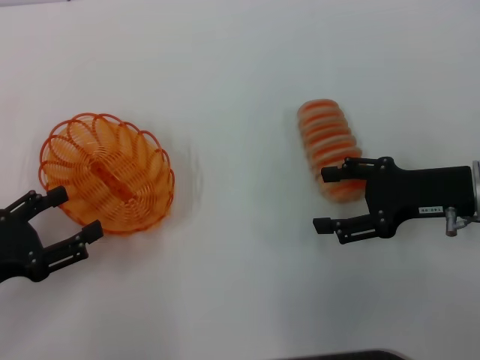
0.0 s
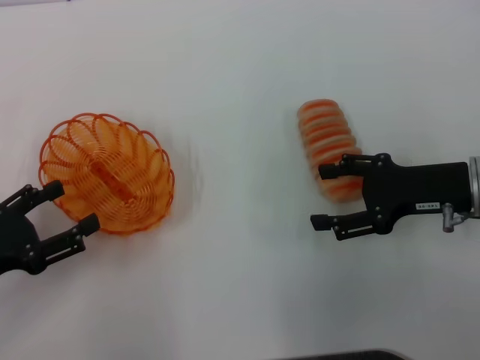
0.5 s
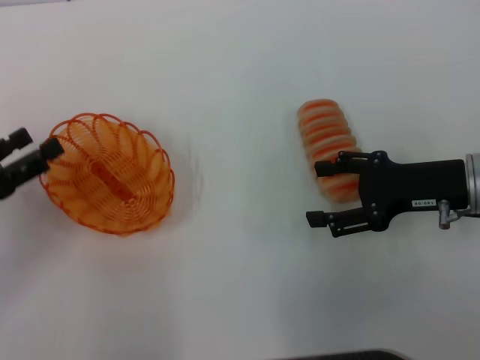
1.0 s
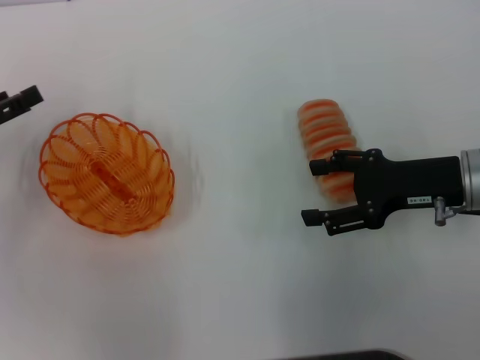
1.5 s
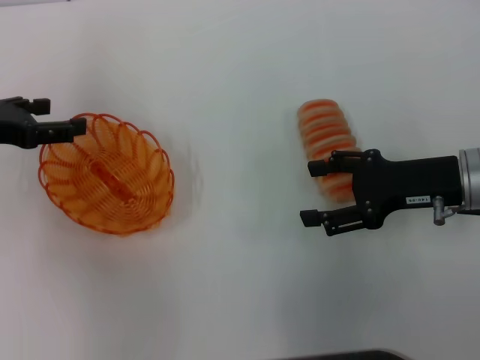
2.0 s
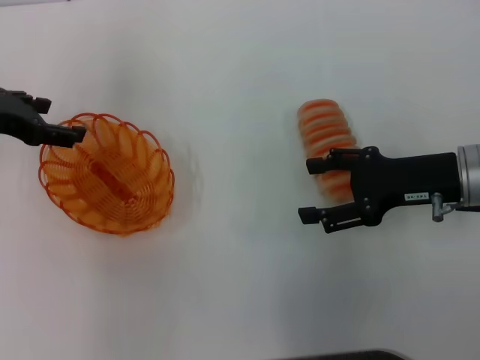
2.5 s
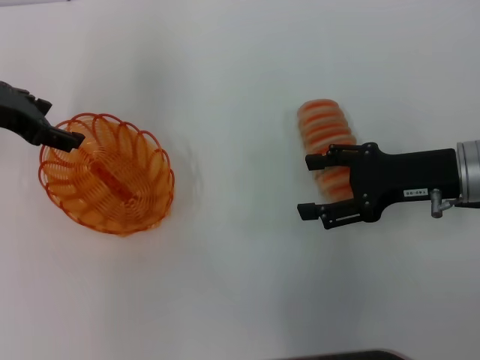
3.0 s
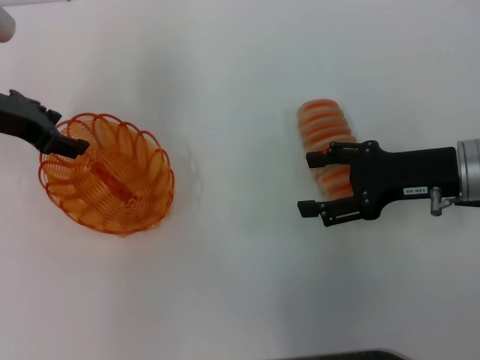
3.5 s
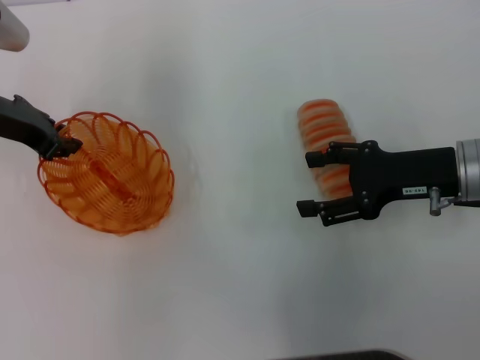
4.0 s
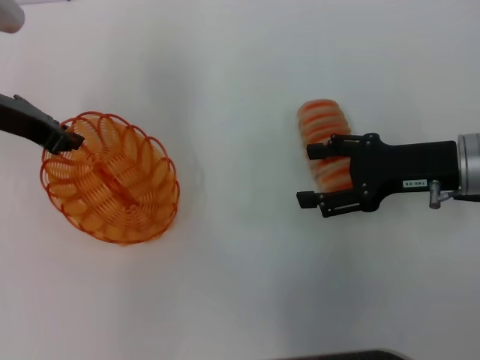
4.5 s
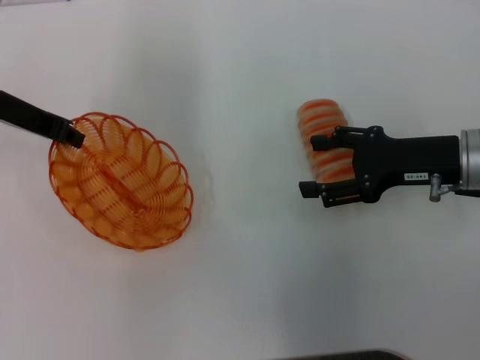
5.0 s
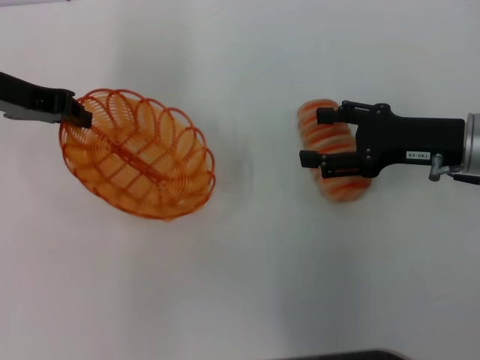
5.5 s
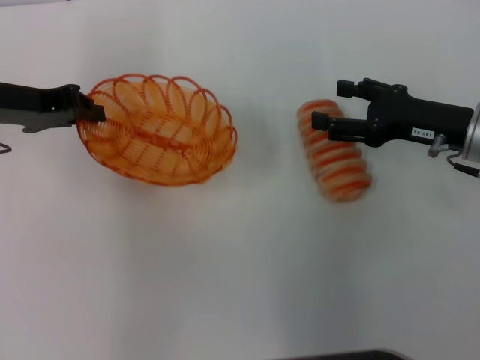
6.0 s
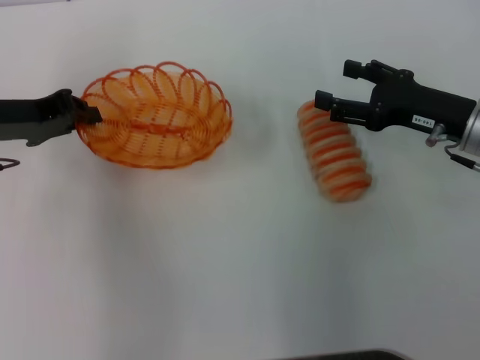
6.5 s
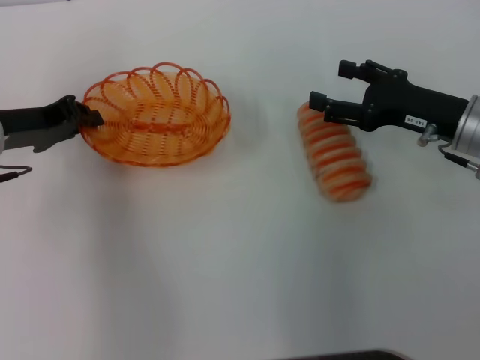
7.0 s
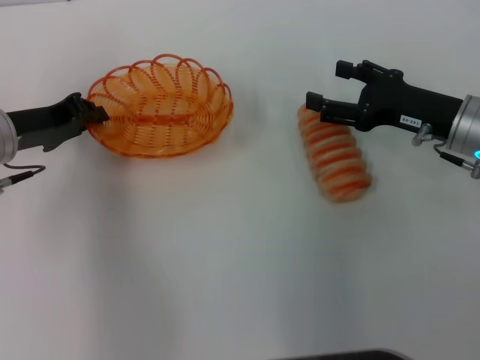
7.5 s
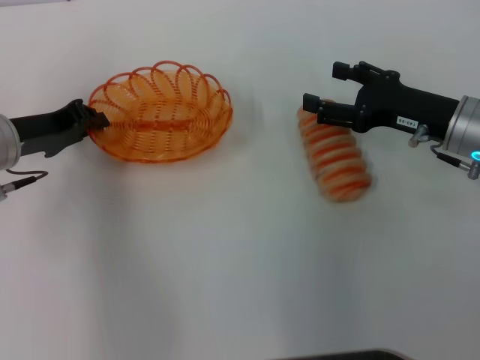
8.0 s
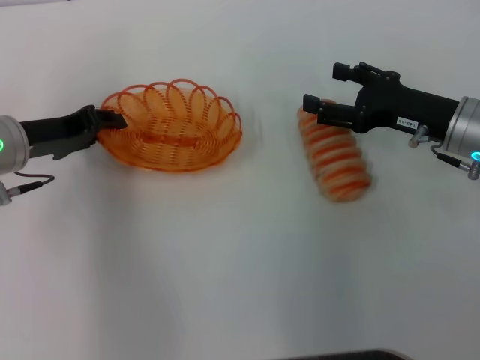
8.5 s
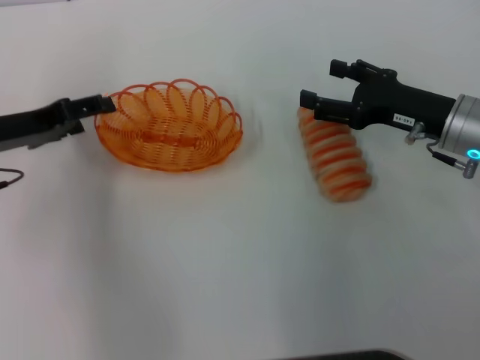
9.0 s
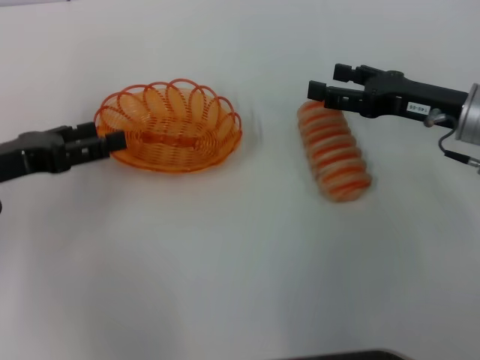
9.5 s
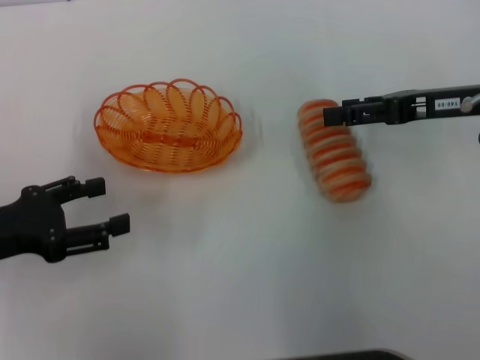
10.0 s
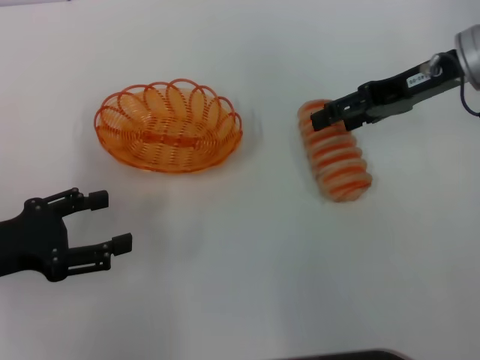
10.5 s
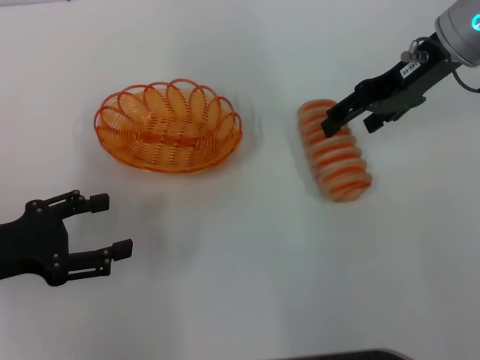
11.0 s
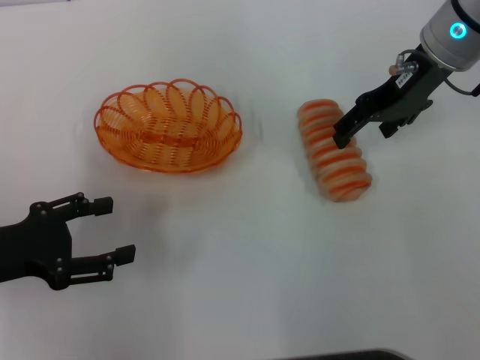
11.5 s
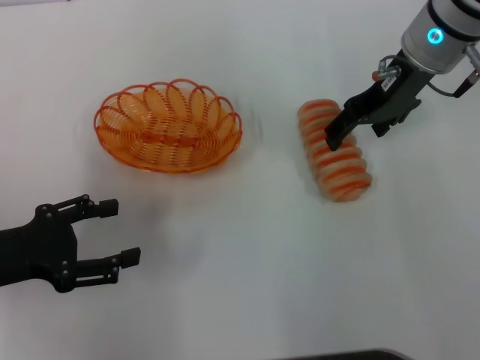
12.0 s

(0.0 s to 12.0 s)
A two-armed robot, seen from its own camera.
Step, 0.0 s - 5.0 s: Pick up the basket with the left gripper.
Step, 5.5 s - 9.0 s: Place the basket in the center of view with the left gripper.
0.0 s - 2.0 s: The left gripper goes about 15 cm forward and upward.
2.0 s - 4.0 s: The left gripper goes approximately 5 cm to the right, and closes up.
4.0 s - 6.0 s: The left gripper closes its fingers.
6.0 s - 8.0 s: The left gripper heads downward, covering roughly 5 cm.
8.0 s - 10.0 s: The left gripper goes approximately 10 cm backward, and opens up, while the right gripper shifts about 5 cm upward.
10.0 s - 12.0 s: The right gripper travels to the left and forward by about 10 cm.

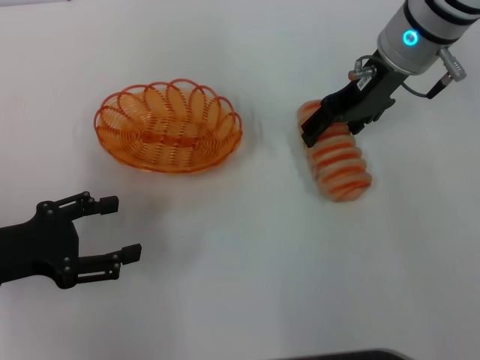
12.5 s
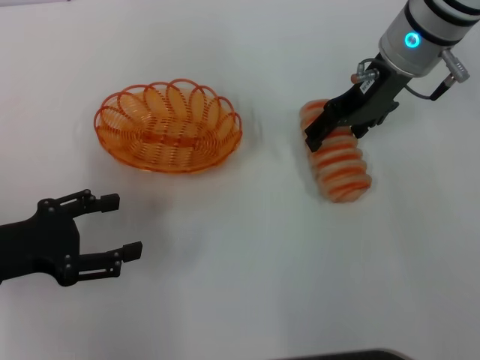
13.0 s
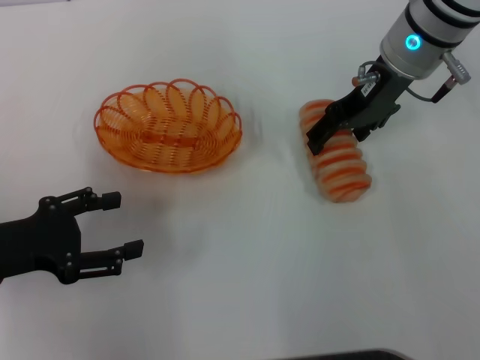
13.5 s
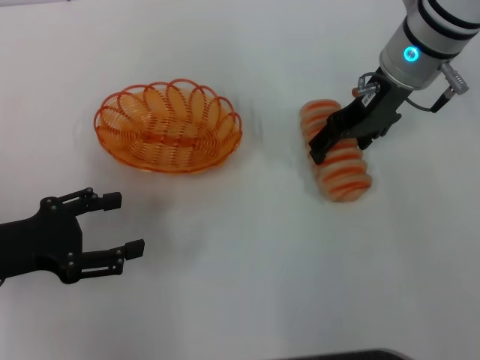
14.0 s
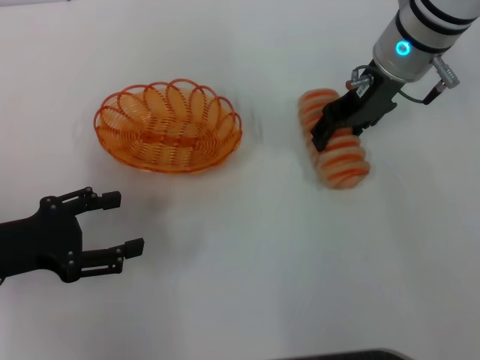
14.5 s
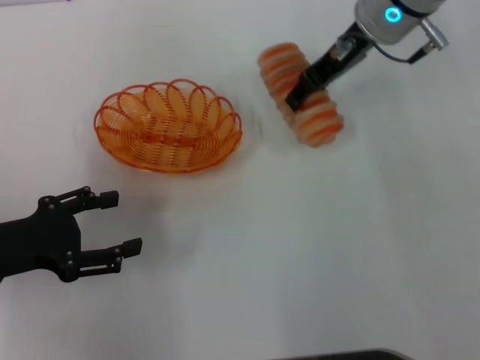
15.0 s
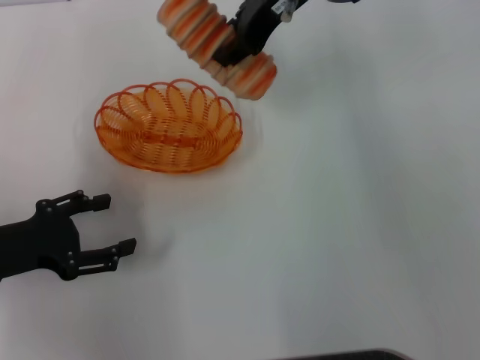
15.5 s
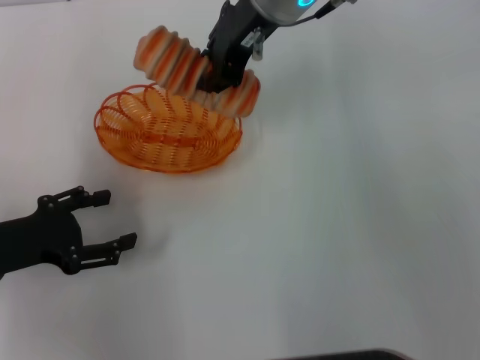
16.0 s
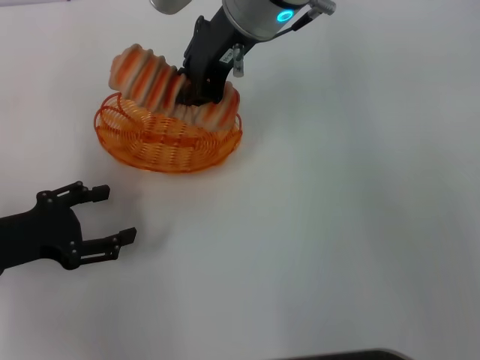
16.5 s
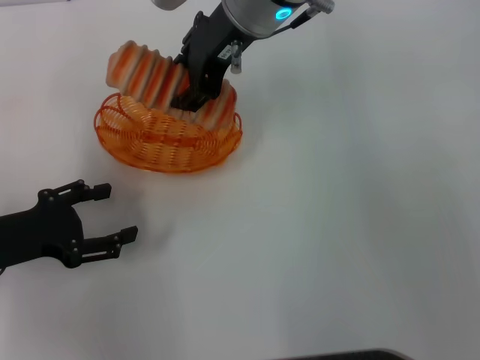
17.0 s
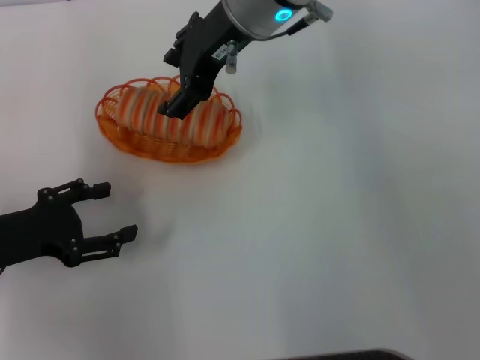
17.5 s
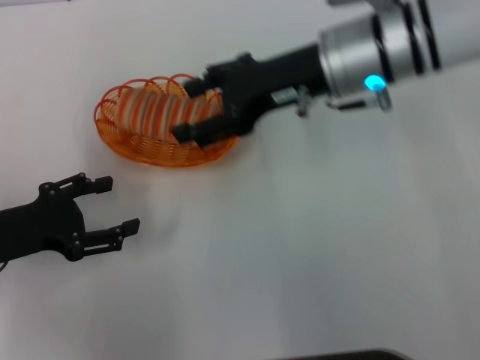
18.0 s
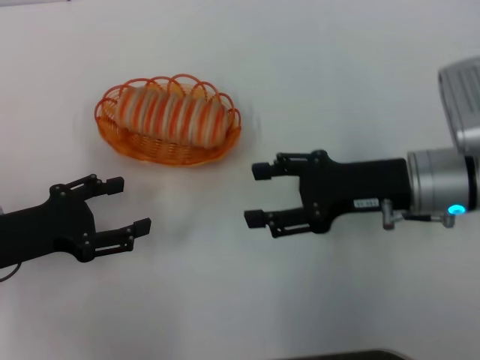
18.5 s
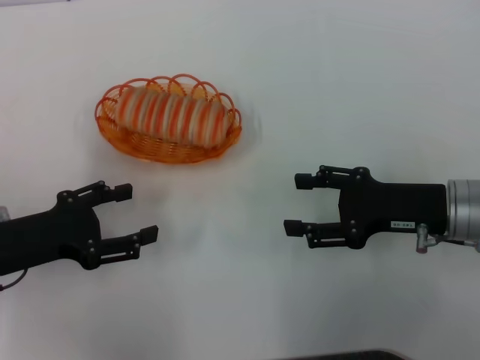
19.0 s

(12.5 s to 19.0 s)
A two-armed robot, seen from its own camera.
Step, 12.5 s - 14.5 s: Pick up the long bread with the right gripper.
Step, 15.0 s - 17.5 s: Place the long bread into the basket with the right gripper.
12.5 s - 14.5 s: Both grippers stay put.
14.5 s - 17.0 s: The right gripper is displaced to the left and upward by roughly 15 cm, and closes.
17.0 s - 19.0 s: The right gripper moves to the right, downward and backward, roughly 30 cm, and opens up.

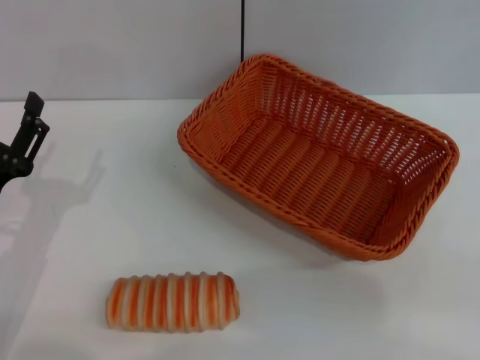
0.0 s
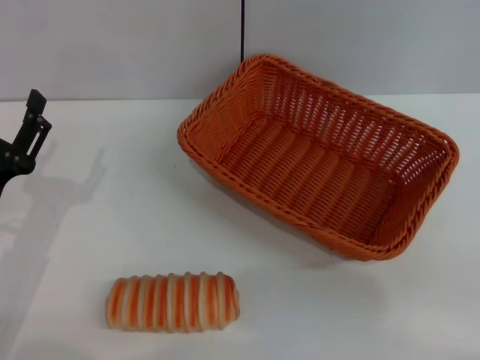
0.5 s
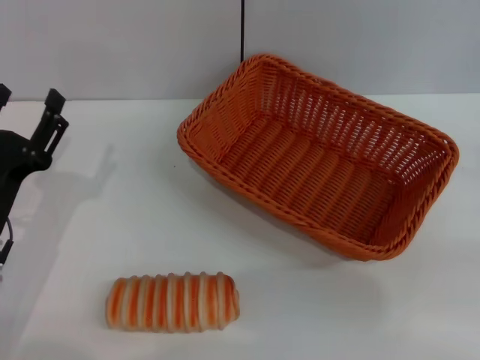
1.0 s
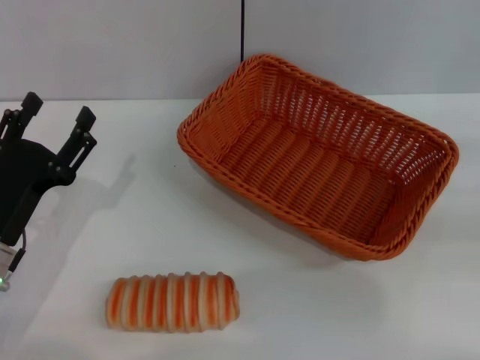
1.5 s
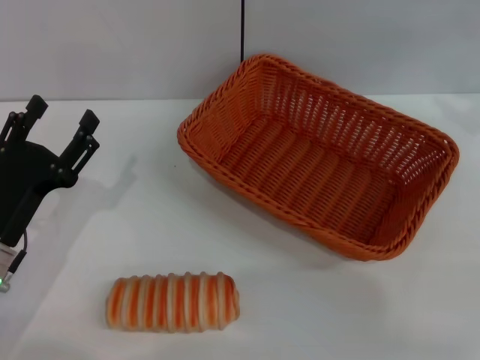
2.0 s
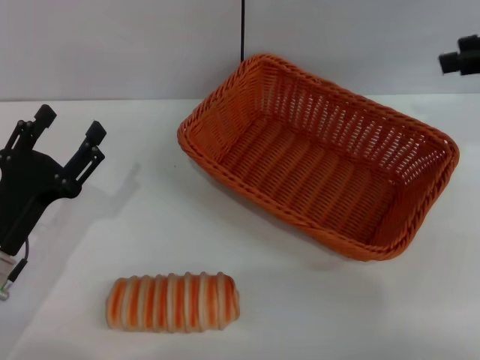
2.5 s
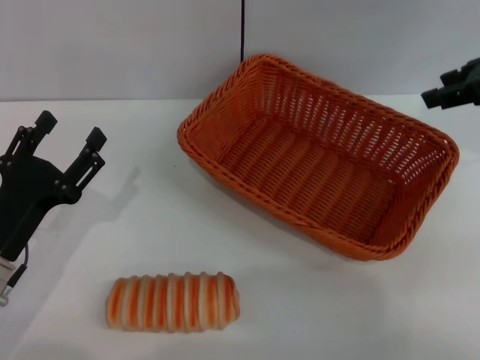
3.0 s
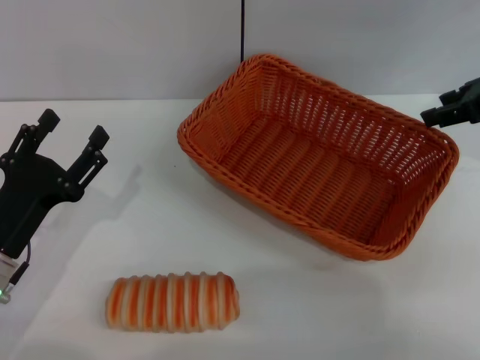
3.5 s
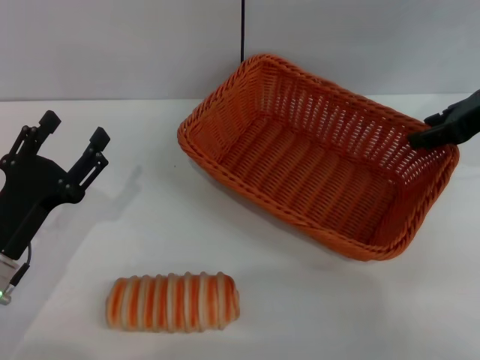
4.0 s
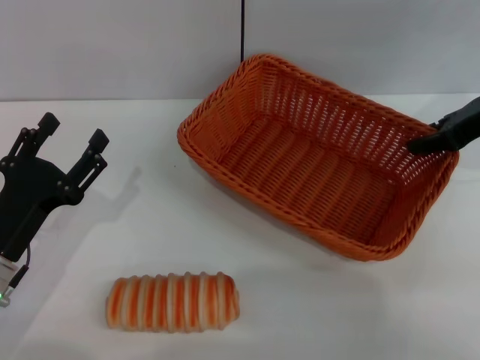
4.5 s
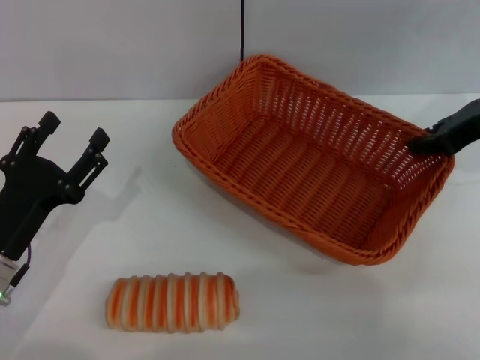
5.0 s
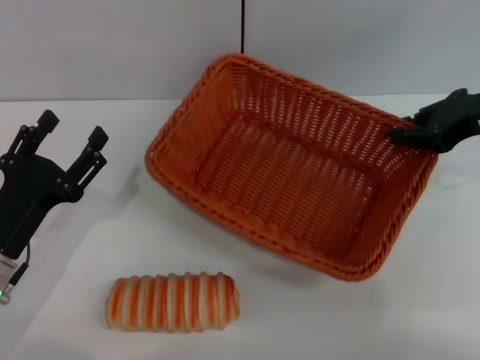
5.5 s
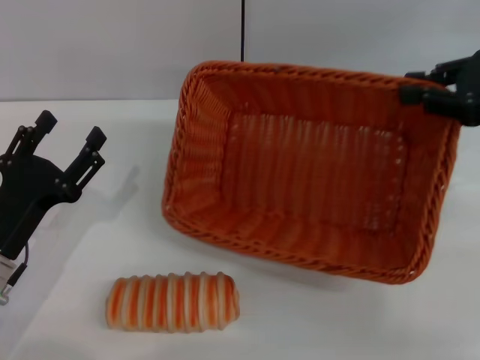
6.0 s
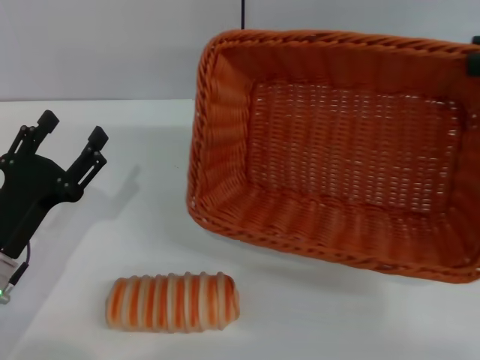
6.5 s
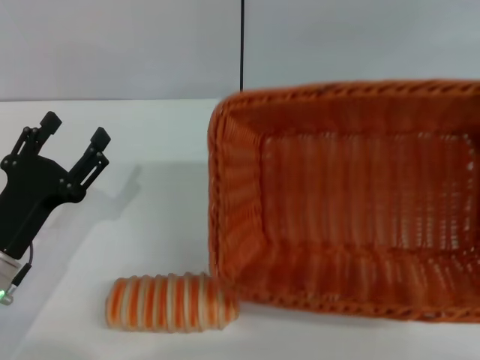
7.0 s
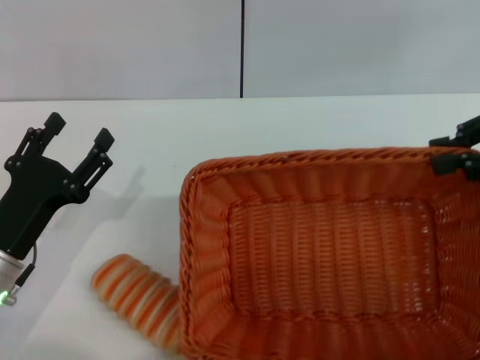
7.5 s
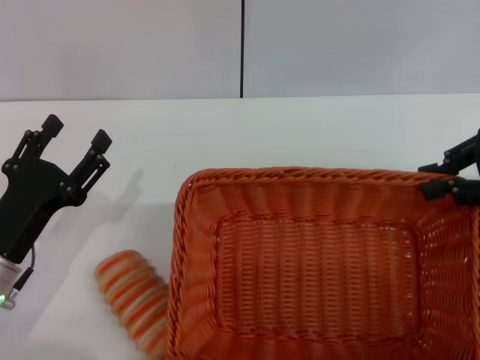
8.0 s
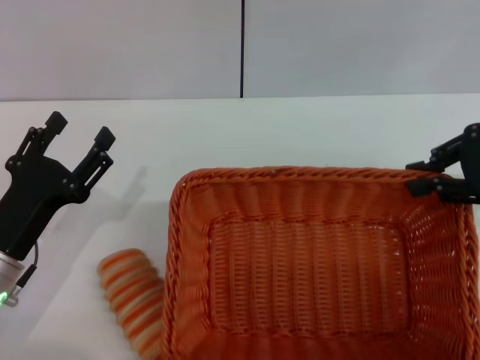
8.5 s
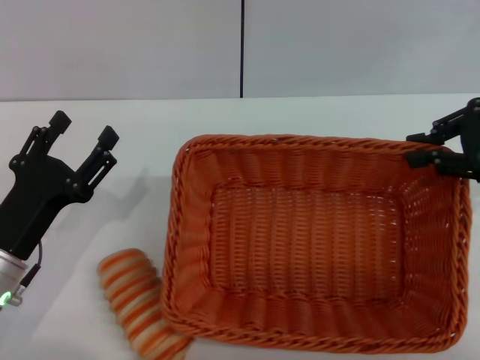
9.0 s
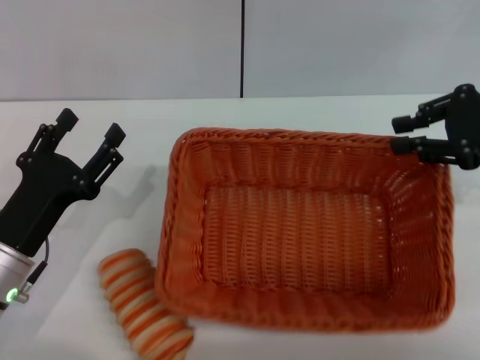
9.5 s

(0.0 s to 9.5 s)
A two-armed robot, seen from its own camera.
Step, 0.0 s - 5.5 s: Pick up the light basket with the right gripper.
2.0 s - 4.0 s: The right gripper heads to the left, covering roughly 10 cm.
4.0 s - 5.5 s: The right gripper closes its fingers.
5.5 s - 7.5 s: The right gripper goes upward and returns, roughly 10 cm each way.
